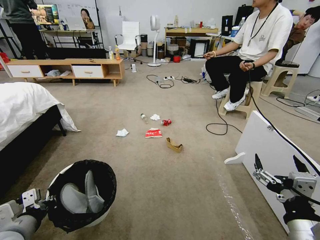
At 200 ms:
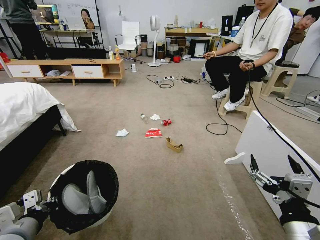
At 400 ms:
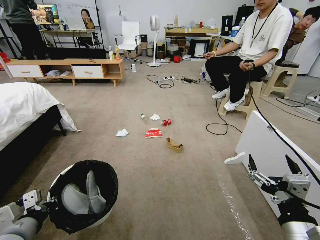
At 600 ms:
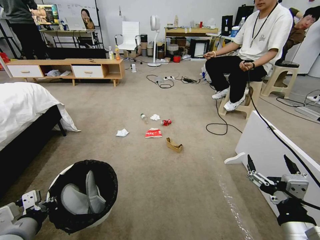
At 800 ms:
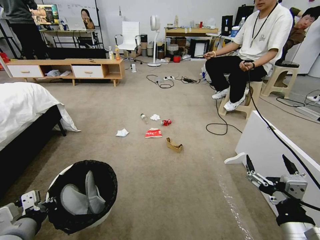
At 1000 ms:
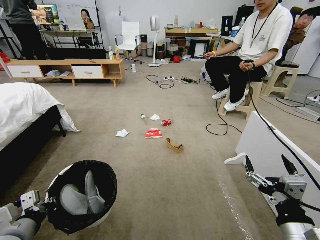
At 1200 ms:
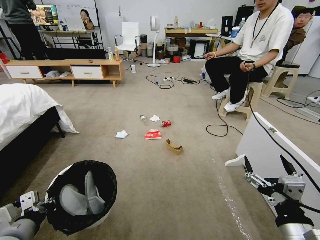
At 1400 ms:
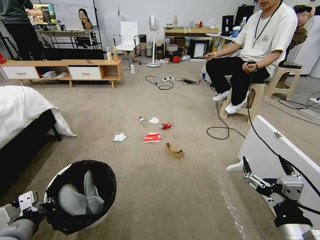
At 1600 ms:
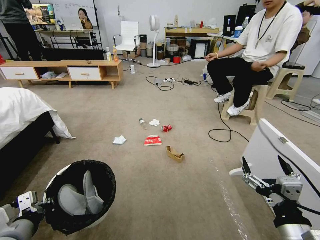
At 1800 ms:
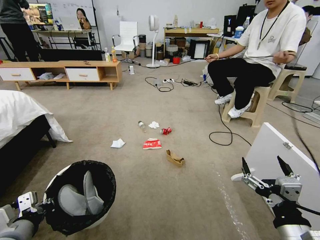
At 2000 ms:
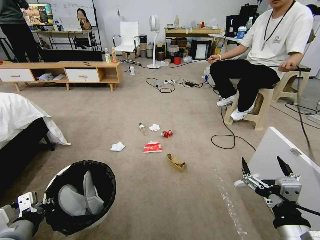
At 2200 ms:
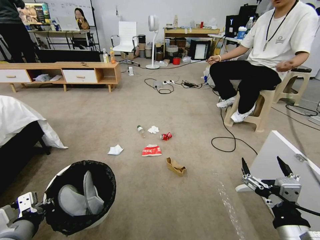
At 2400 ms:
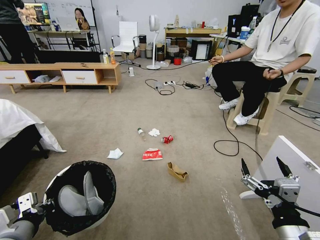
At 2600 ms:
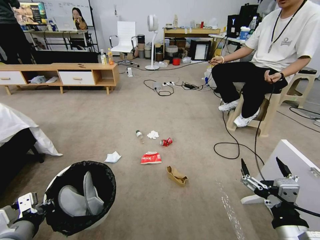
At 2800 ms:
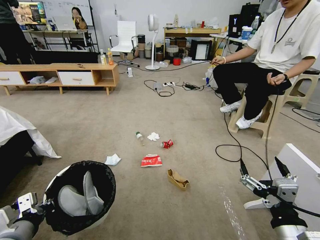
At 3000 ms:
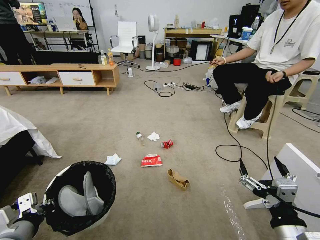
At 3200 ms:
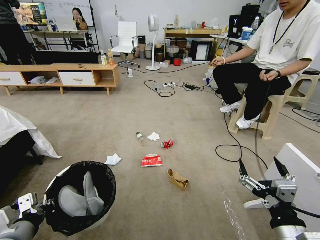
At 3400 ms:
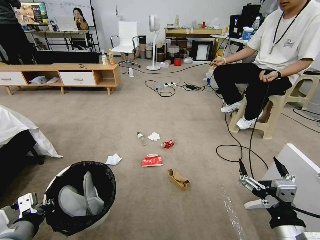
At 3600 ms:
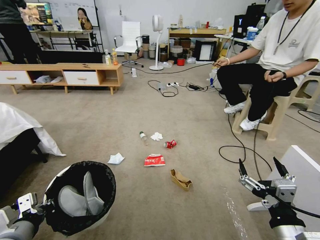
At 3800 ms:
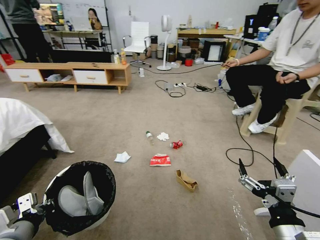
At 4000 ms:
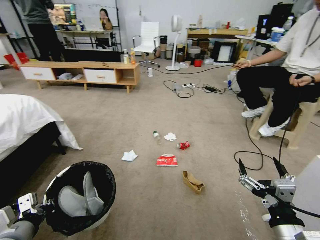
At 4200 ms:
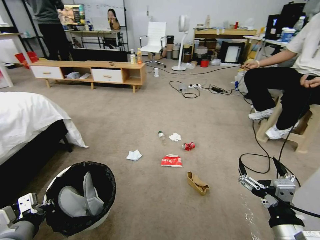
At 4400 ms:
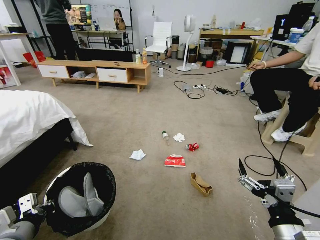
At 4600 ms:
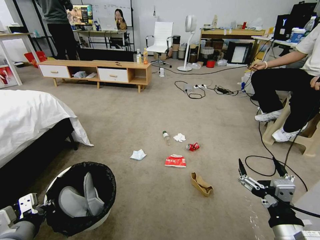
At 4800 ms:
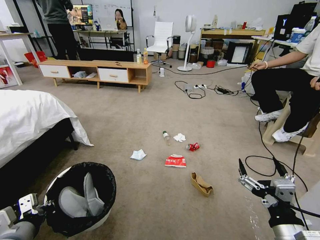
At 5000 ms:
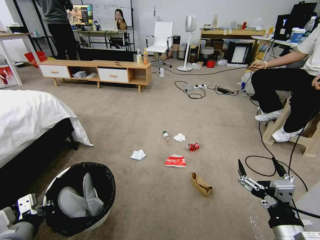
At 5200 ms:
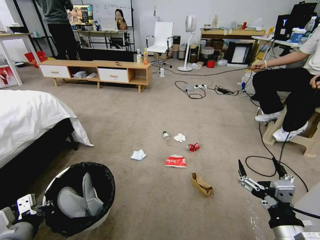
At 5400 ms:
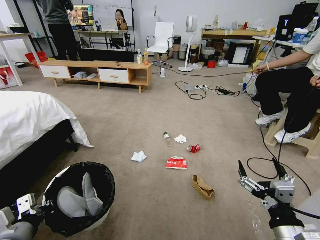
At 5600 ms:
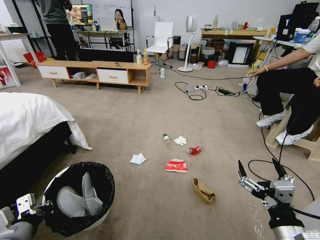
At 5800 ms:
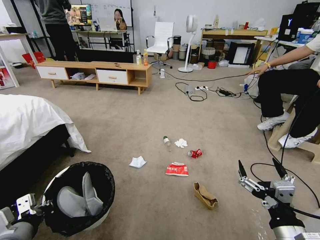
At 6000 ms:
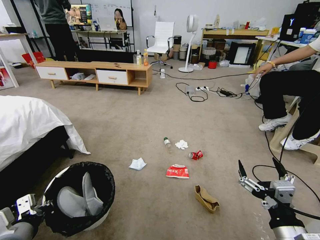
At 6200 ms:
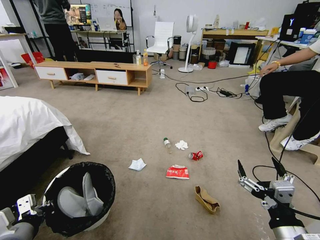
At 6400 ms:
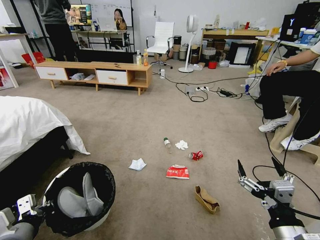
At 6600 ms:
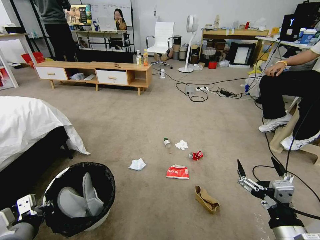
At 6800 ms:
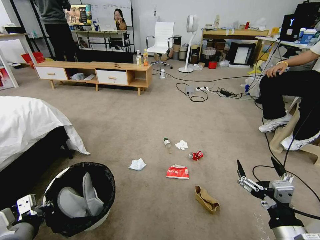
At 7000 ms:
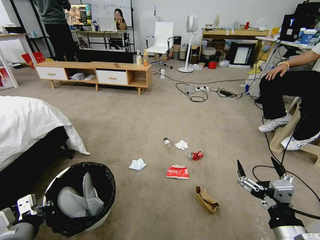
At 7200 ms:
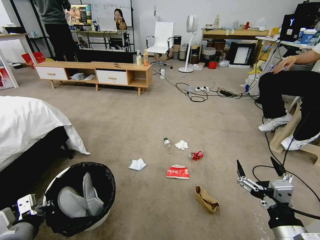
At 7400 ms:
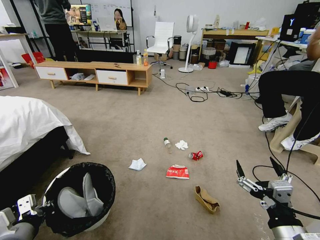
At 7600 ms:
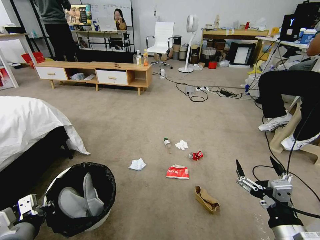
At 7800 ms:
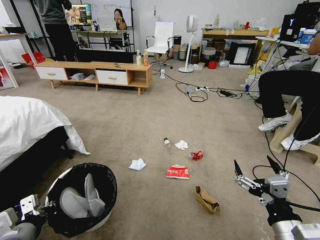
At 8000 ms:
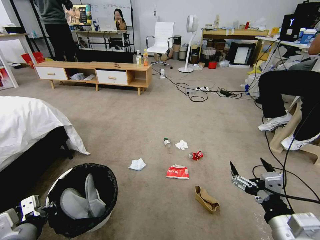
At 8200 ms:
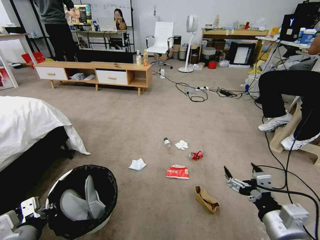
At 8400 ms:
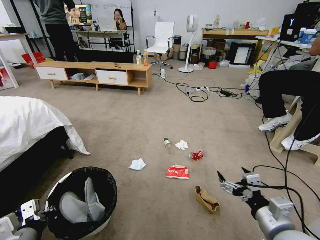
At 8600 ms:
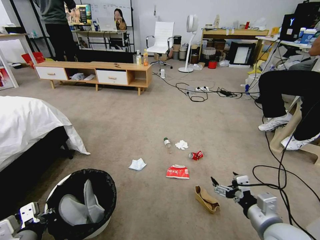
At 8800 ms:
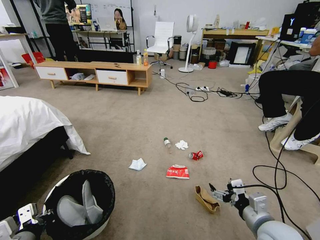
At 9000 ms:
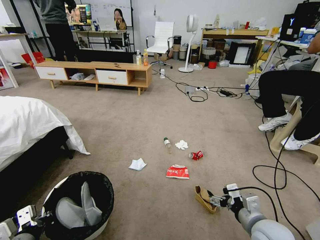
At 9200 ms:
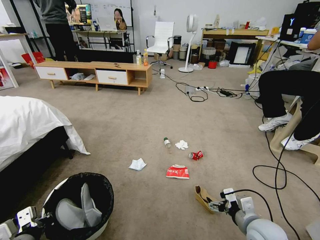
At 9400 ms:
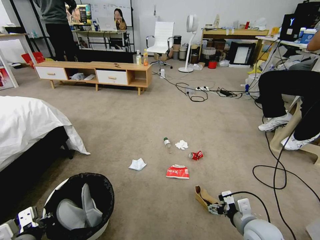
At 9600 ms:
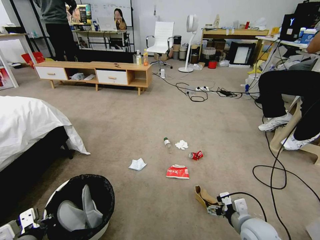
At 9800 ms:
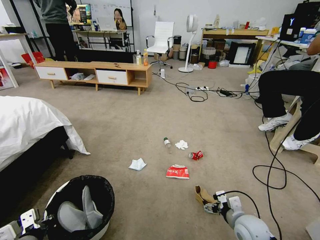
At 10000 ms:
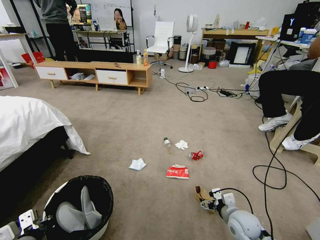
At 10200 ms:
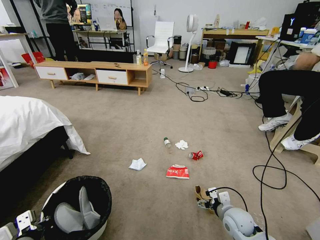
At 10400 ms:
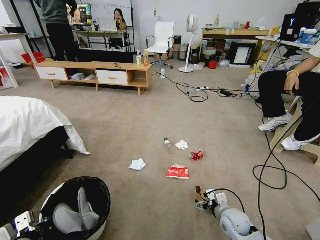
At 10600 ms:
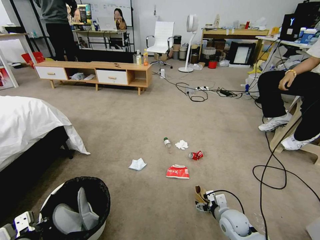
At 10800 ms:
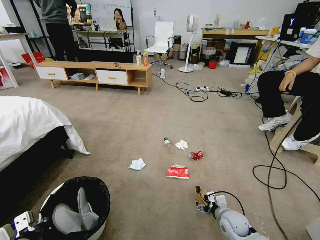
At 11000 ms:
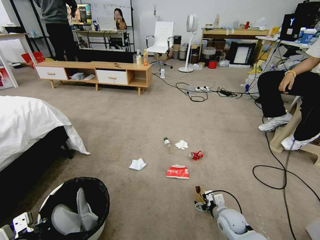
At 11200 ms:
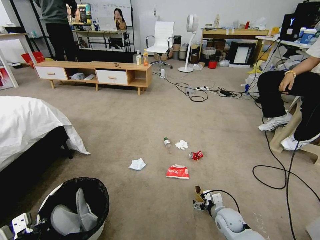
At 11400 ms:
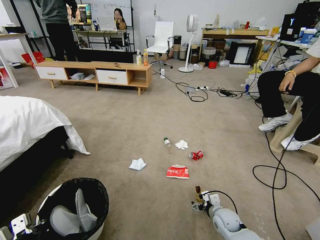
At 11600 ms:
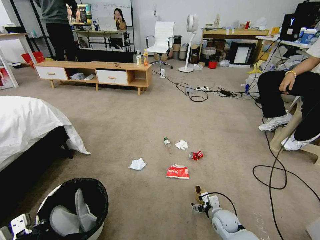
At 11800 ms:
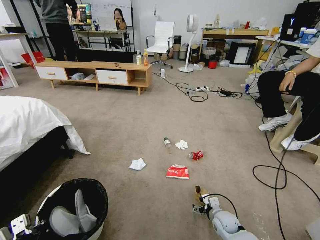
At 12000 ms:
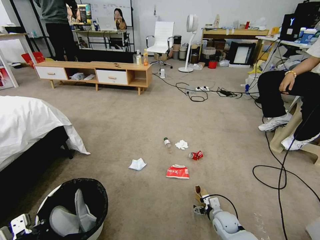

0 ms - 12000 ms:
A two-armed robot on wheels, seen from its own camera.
Task of the whole recording: Pick up the trash bin and place the garbage on the floor into it.
6000 ms - 7600 ms: Both grippers stay put.
7600 ms - 9000 ms: The right gripper shifts approximately 10 cm forward and downward.
9000 ms - 10400 ms: The right gripper shifts about 15 cm downward and forward.
10400 ms - 12000 ms: The right gripper travels downward by roughly 10 cm.

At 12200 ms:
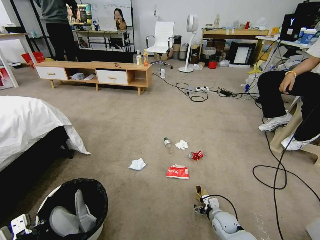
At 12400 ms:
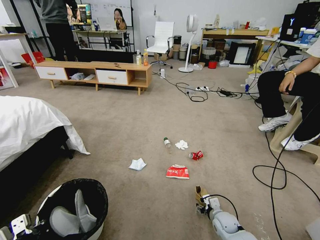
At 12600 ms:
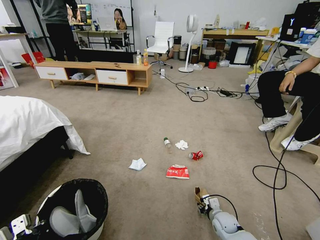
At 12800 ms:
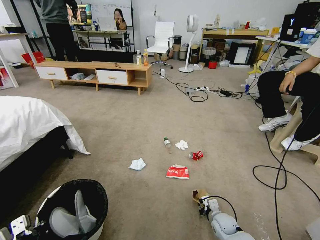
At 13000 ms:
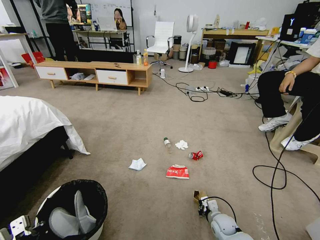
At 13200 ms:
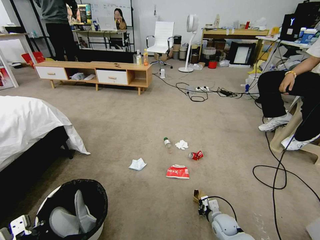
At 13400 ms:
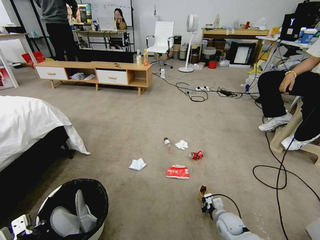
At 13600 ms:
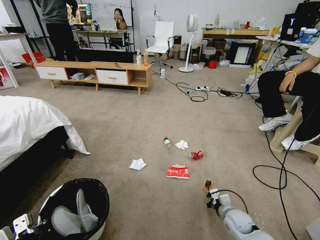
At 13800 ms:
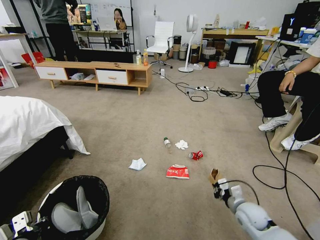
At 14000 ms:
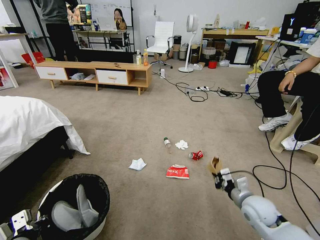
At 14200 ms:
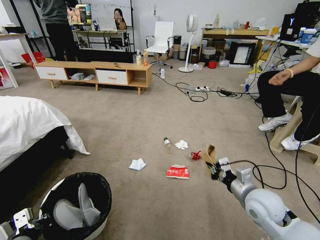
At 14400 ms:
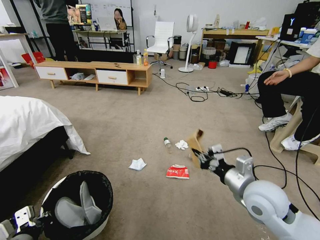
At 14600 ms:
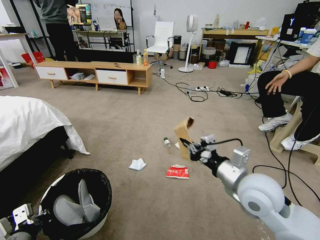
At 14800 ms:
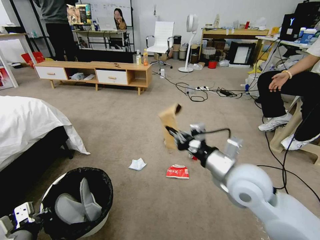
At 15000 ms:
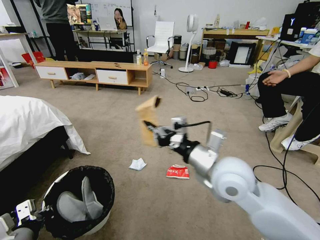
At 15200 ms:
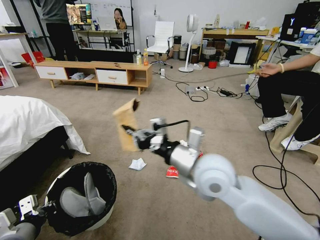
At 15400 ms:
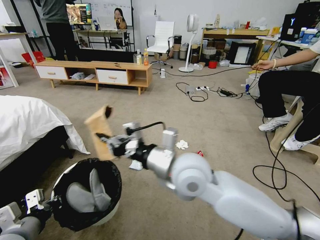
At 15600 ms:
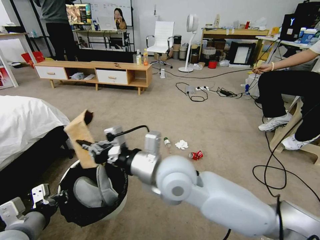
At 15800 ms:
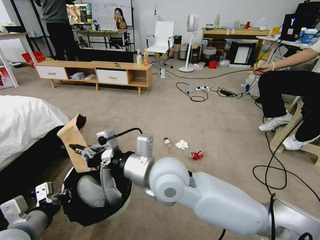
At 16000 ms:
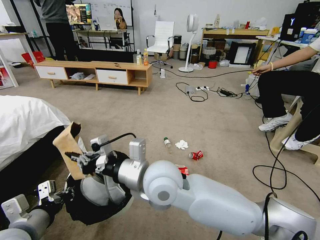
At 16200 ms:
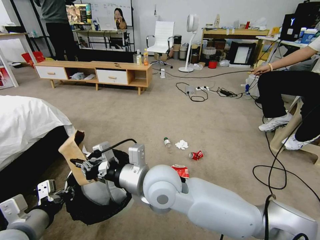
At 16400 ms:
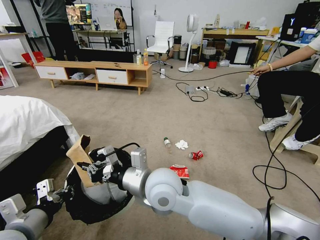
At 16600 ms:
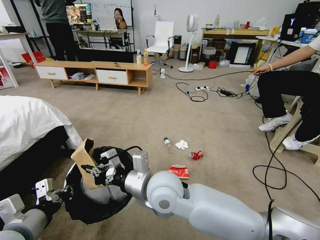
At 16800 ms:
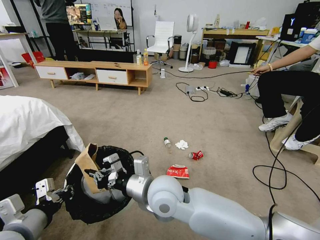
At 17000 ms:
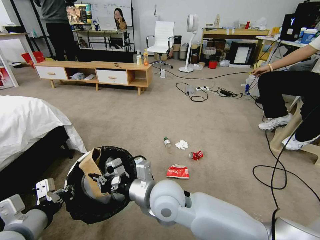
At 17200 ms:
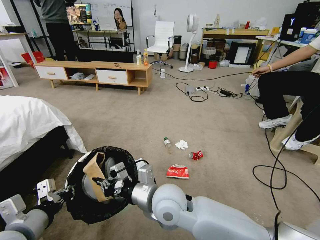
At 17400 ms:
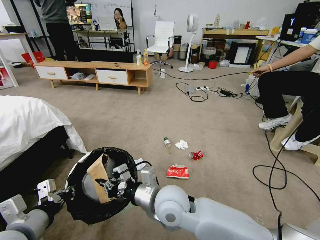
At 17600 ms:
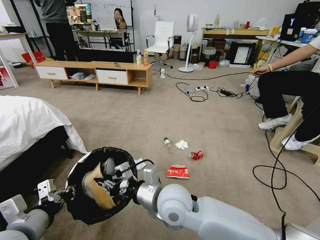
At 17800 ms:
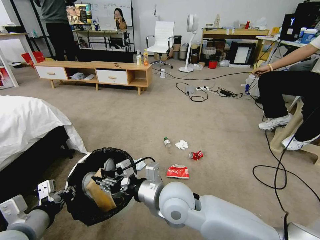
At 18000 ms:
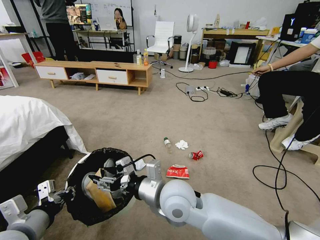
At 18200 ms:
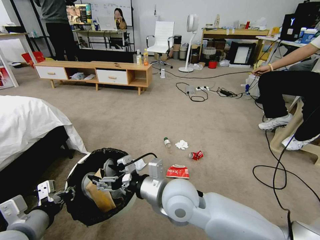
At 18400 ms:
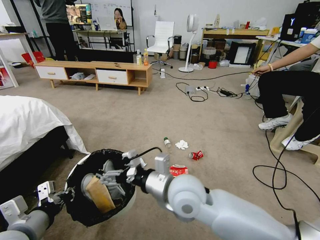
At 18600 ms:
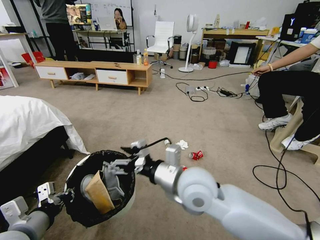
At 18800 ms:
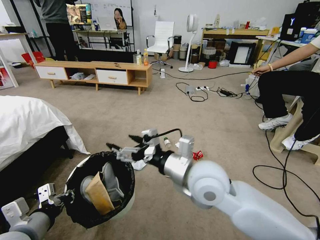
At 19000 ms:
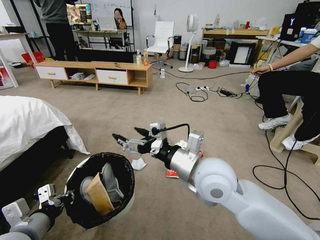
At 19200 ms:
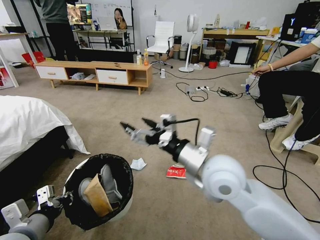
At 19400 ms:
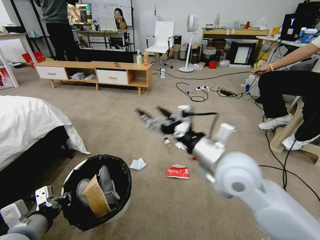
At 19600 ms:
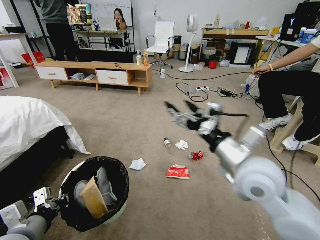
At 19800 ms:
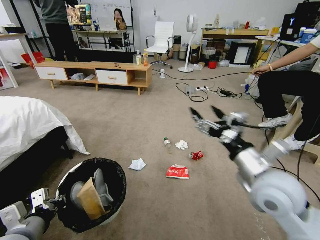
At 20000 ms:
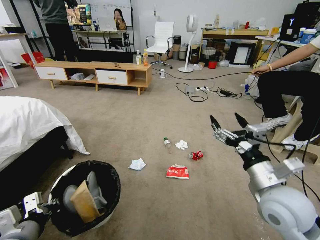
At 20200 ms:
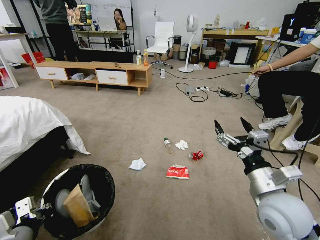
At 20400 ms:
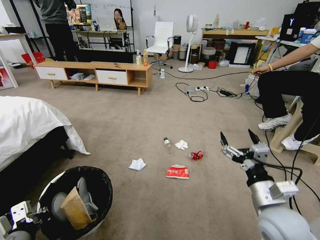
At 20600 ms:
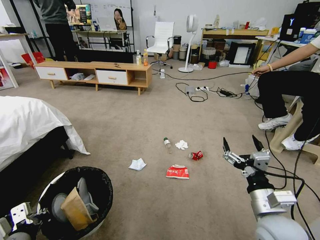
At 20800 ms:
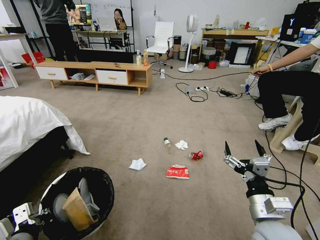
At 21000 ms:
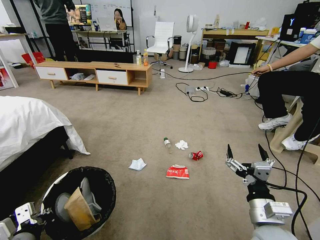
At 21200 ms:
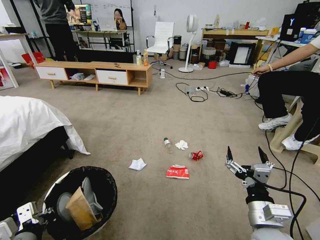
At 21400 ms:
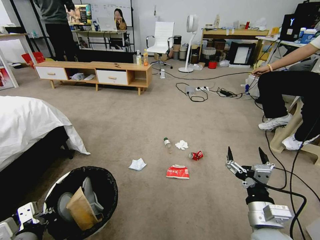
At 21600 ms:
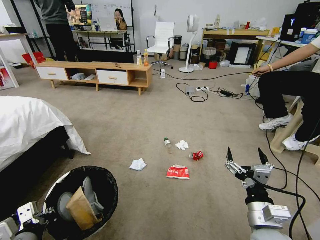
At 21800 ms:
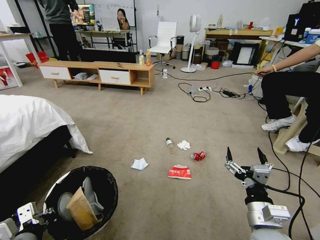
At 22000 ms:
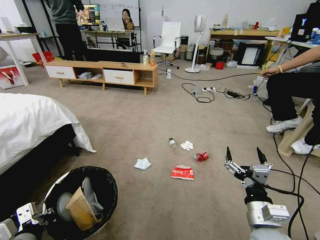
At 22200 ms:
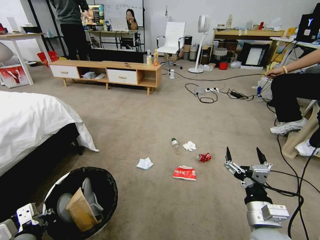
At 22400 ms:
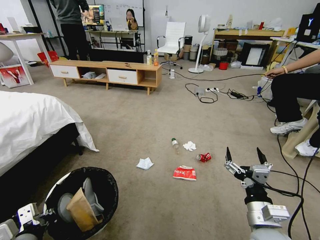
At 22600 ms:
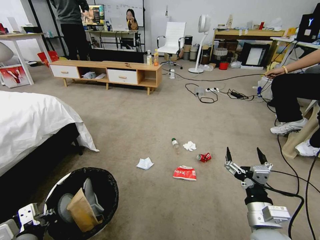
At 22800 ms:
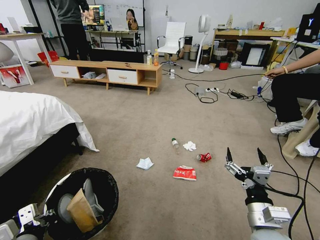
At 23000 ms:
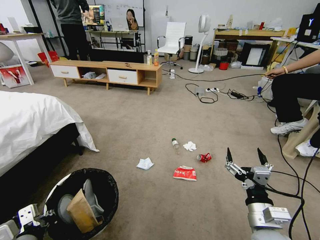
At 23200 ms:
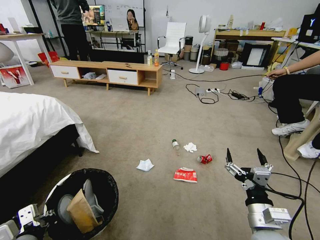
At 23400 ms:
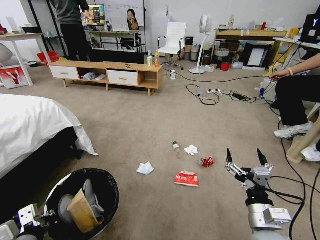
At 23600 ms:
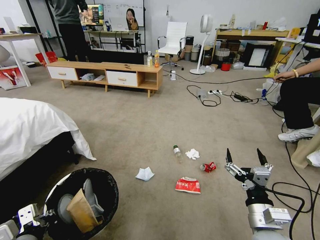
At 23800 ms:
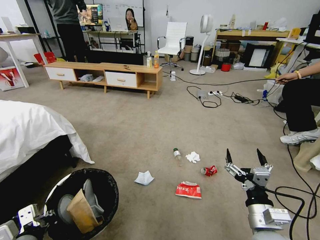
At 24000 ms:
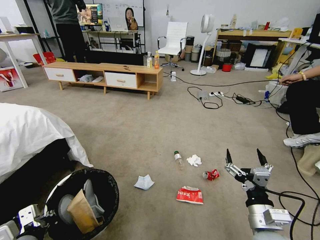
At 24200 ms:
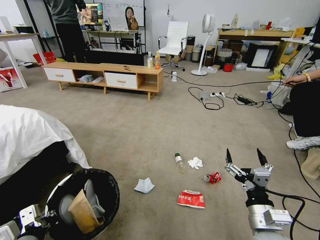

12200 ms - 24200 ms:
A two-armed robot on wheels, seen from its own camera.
Task of the whole recording: Pick up the trash bin and place the garbage on the floor into it.
12200 ms - 13800 ms: The right gripper heads upward and to the right, covering about 10 cm, and closes.
13800 ms - 15200 ms: The right gripper heads upward and to the left, covering approximately 35 cm.
15200 ms - 16600 ms: The left gripper ends up approximately 5 cm from where it was. Meanwhile the right gripper goes some 15 cm to the left and downward.
16600 ms - 18200 ms: The right gripper opens.
18200 ms - 19800 ms: The right gripper goes roughly 20 cm to the right.
19800 ms - 21200 ms: The right gripper moves downward and backward, some 15 cm.
